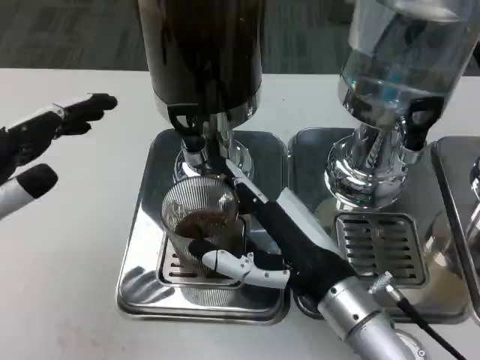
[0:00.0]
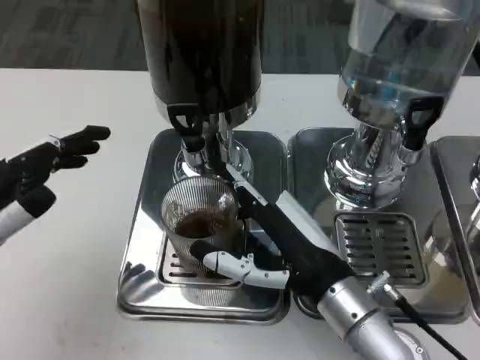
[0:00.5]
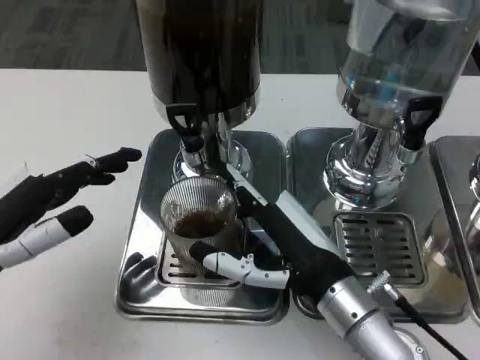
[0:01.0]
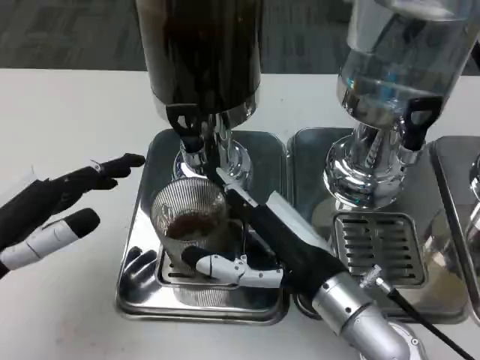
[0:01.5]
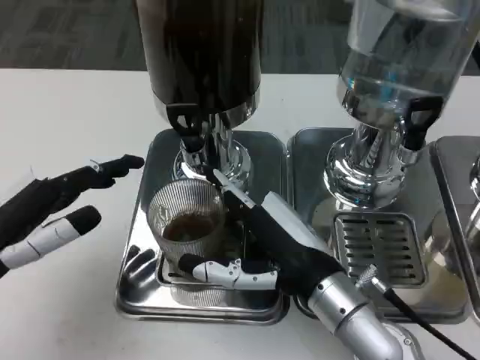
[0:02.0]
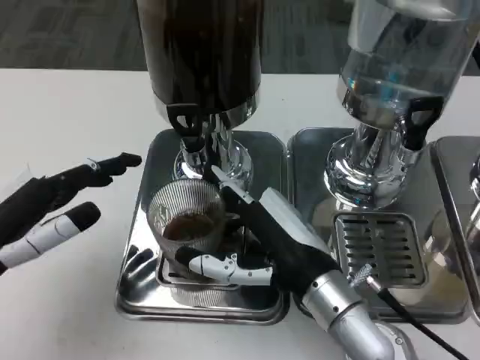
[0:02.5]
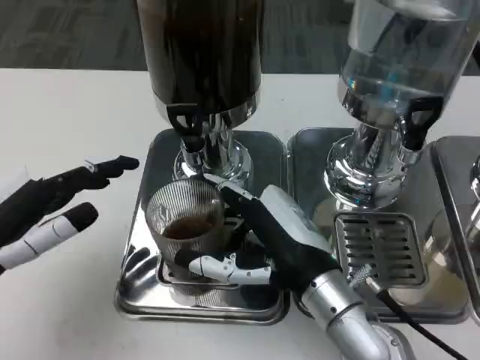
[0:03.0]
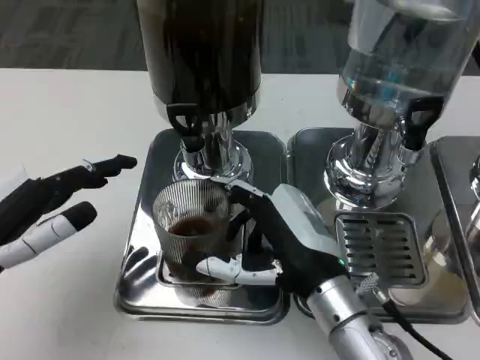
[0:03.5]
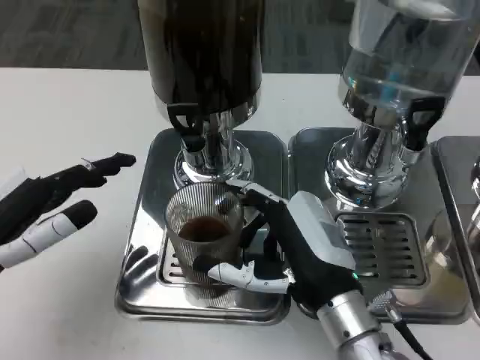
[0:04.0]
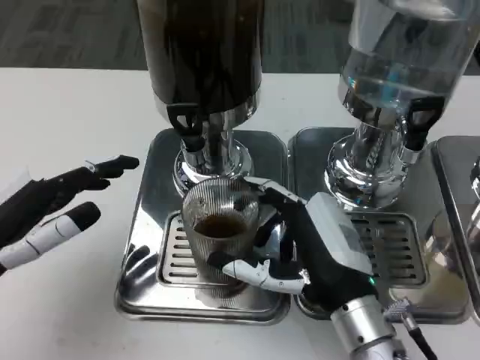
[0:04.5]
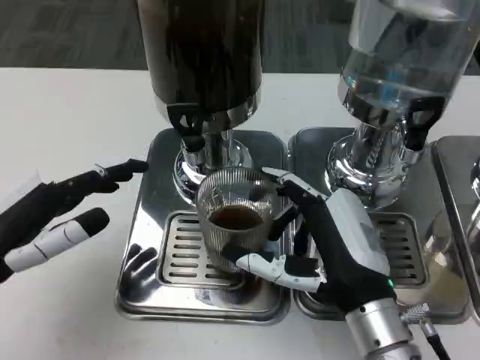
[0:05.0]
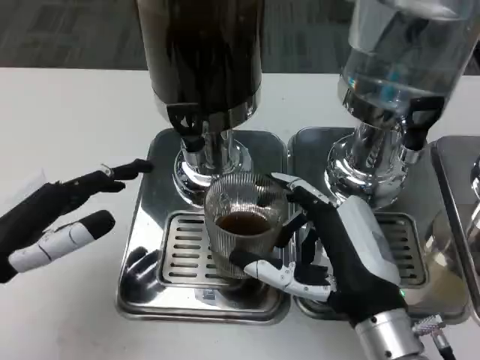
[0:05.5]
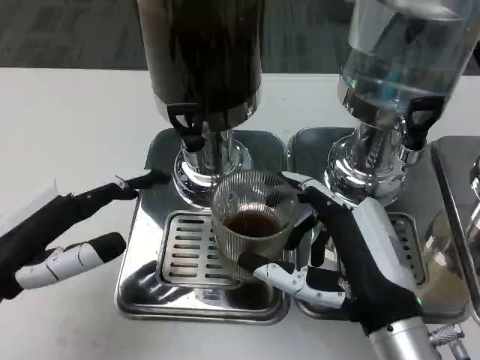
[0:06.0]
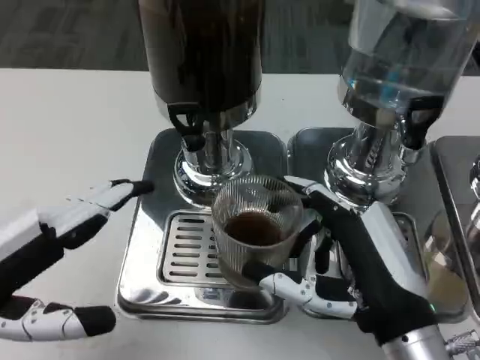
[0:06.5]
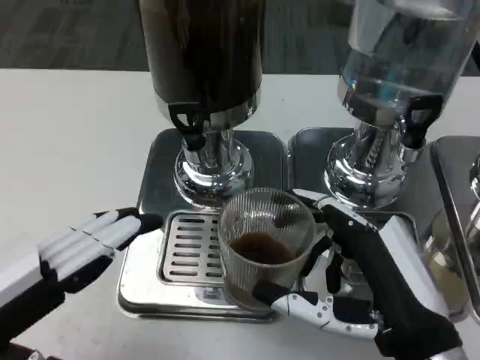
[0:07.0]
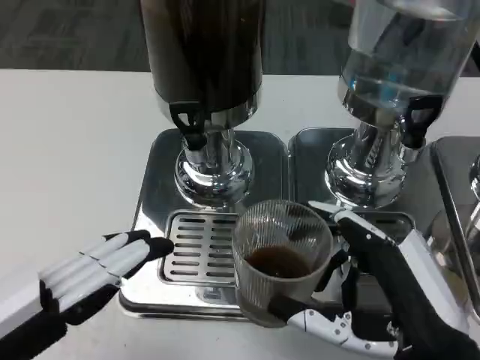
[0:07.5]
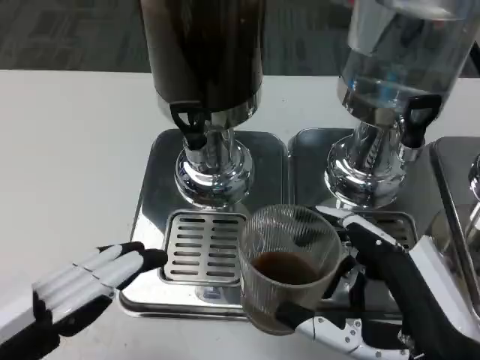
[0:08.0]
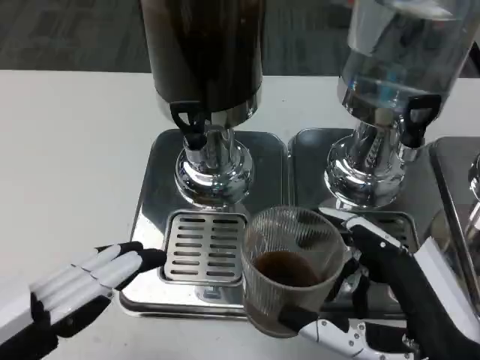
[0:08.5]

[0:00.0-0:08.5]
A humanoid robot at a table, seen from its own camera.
Task of the whole recording: Grasp the cup under the faucet to collect the drink, then remove the cup.
0:02.0 to 0:04.0: The hands make only small movements.
0:04.0 to 0:06.5: The right hand moves some 5 cm. The left hand ends up approximately 5 cm from where it was.
0:06.5 to 0:08.5: The hands both shift backward by about 5 cm.

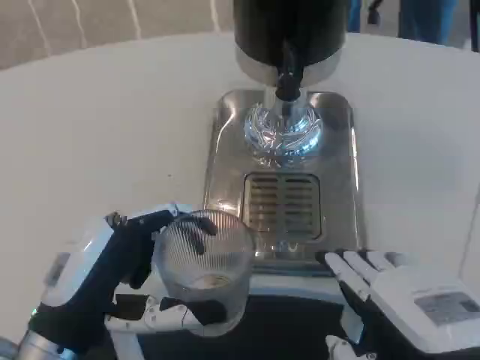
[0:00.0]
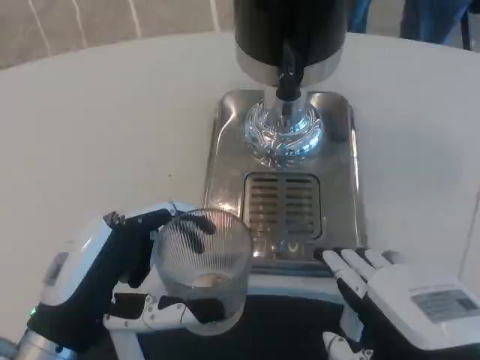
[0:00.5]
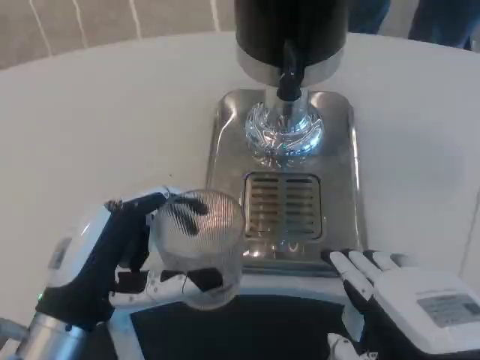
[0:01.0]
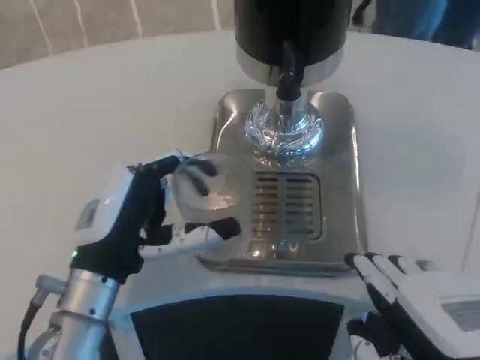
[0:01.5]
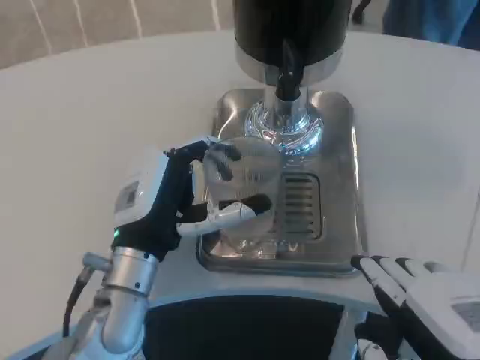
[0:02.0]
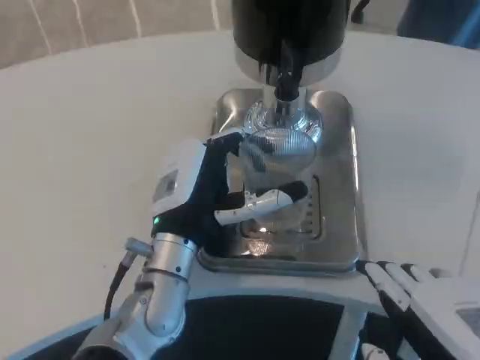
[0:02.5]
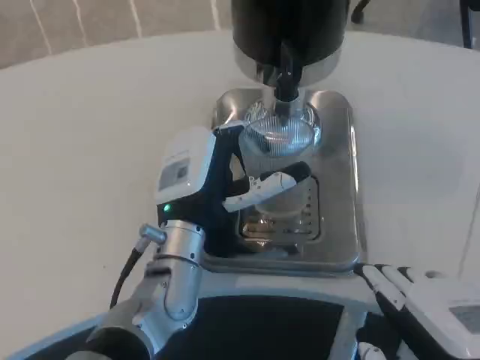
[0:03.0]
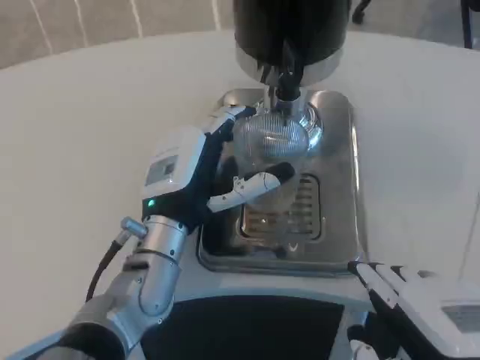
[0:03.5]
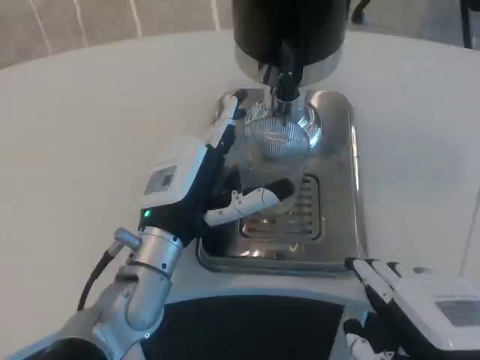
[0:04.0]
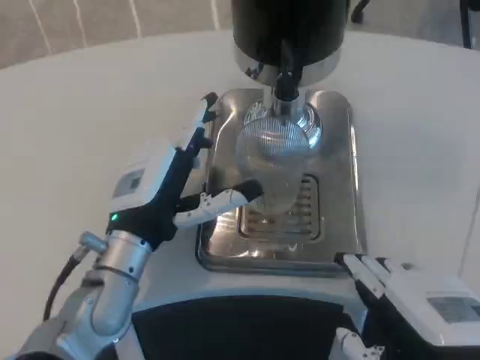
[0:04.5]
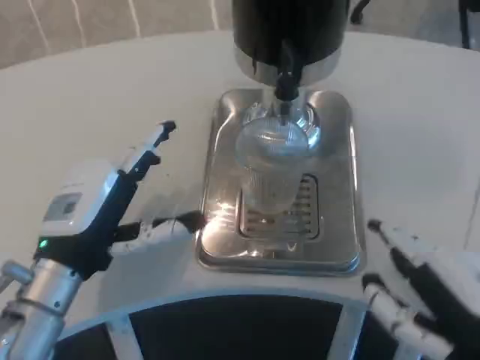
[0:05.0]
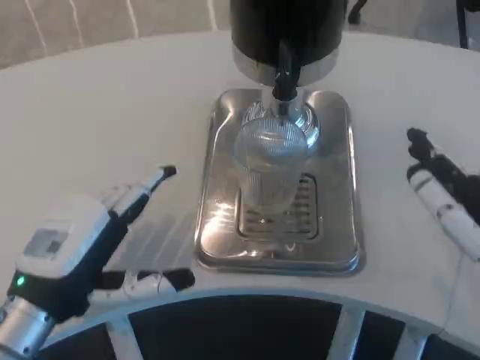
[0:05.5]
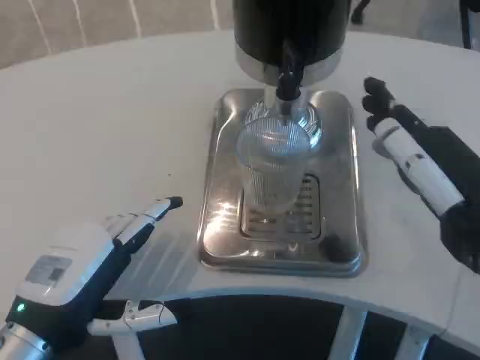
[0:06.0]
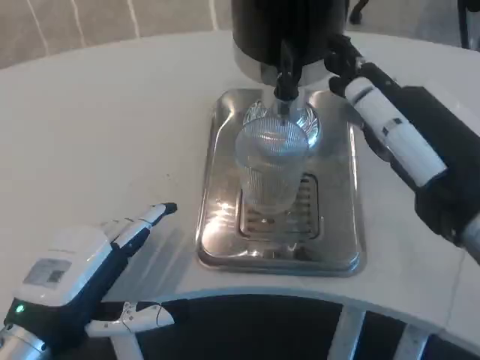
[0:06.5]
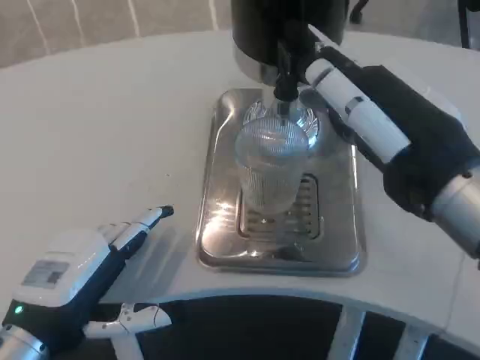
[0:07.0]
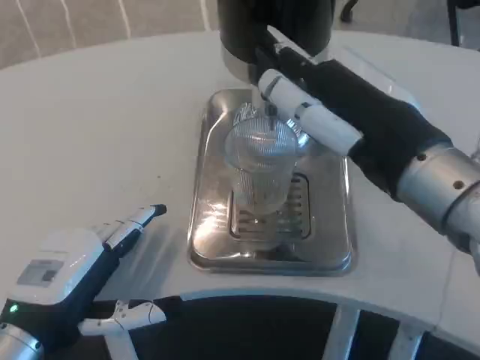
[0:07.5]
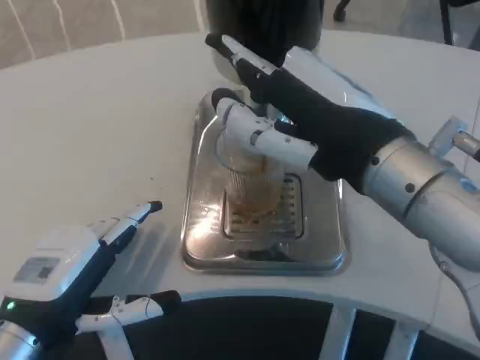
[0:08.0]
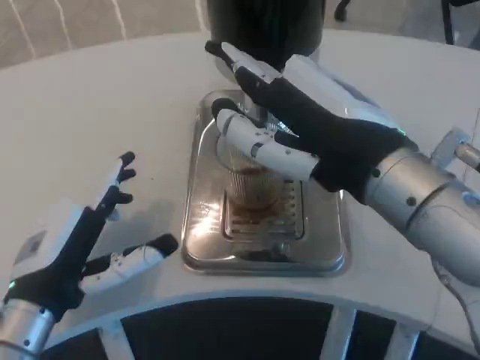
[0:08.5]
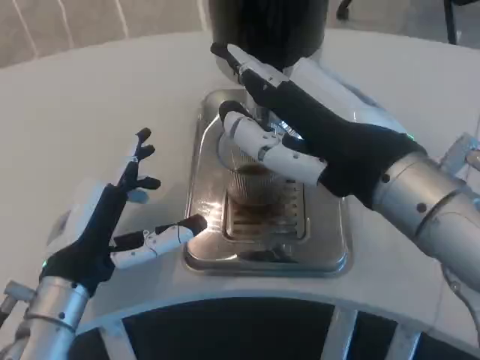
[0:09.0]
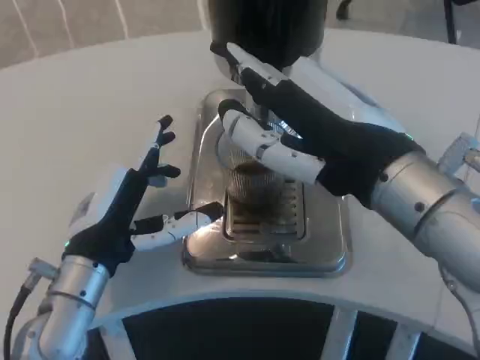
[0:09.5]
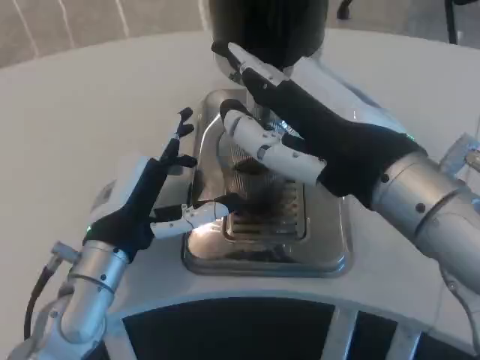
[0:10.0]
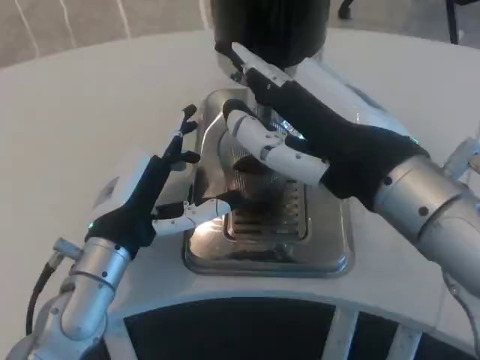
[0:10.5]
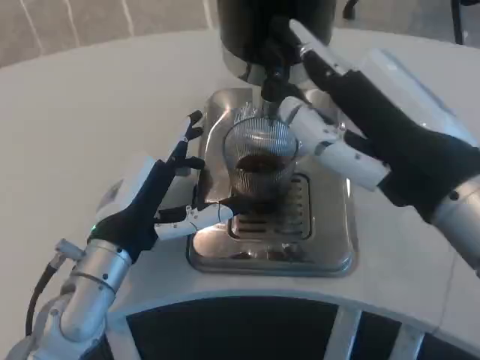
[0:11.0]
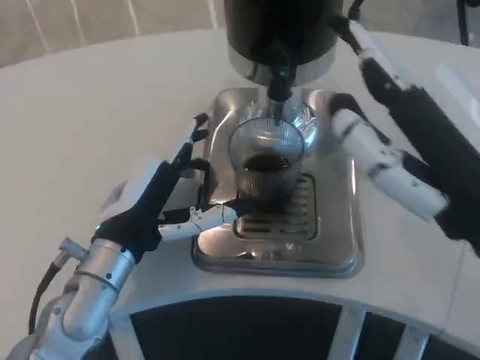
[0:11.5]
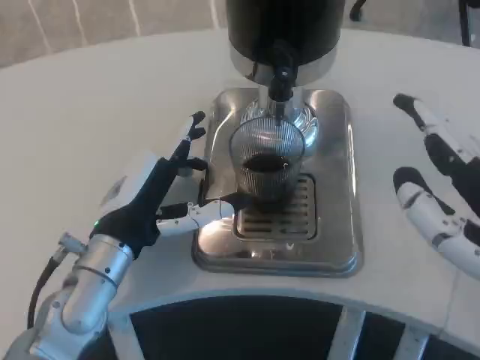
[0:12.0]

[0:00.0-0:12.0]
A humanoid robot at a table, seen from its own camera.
Task of the whole recording: Grasp the cup under the faucet to collect the drink, then remove the cup.
0:00.0 to 0:02.0: The left hand goes about 10 cm forward and to the right.
0:02.0 to 0:04.0: The hands make only small movements.
0:04.0 to 0:06.0: The right hand travels forward and upward by approximately 10 cm, while the left hand moves to the left and backward, about 15 cm.
0:06.0 to 0:08.0: The right hand is displaced to the left and upward by about 10 cm.
0:08.0 to 0:10.0: The left hand goes some 10 cm forward and to the right.
0:10.0 to 0:12.0: The right hand moves to the right and backward, about 10 cm.

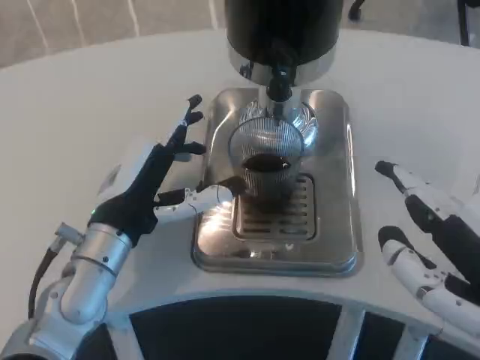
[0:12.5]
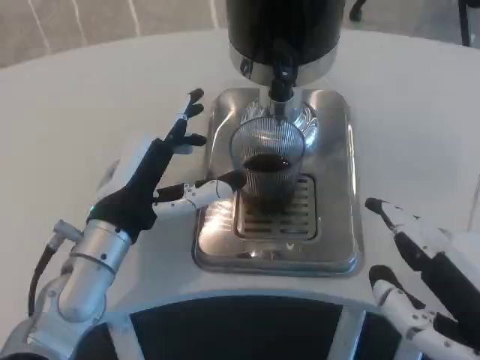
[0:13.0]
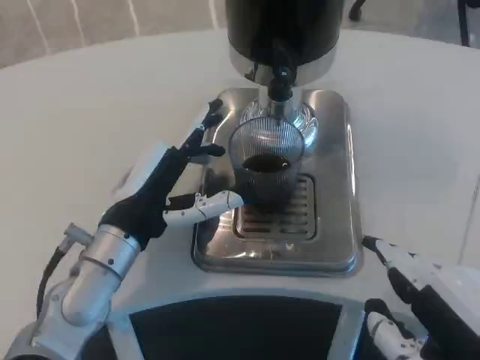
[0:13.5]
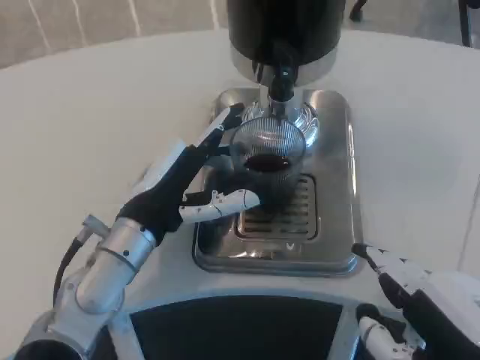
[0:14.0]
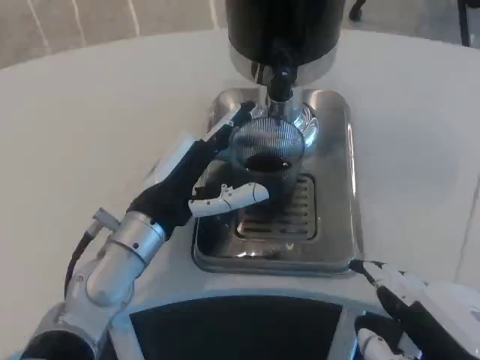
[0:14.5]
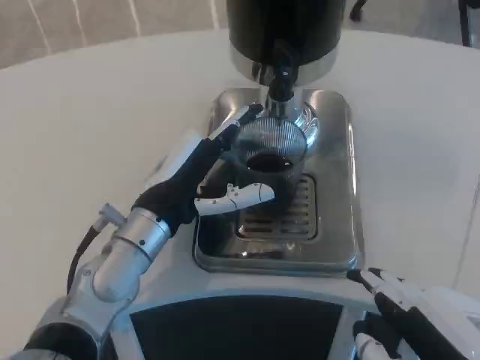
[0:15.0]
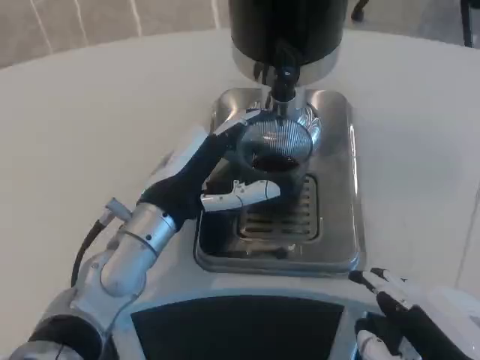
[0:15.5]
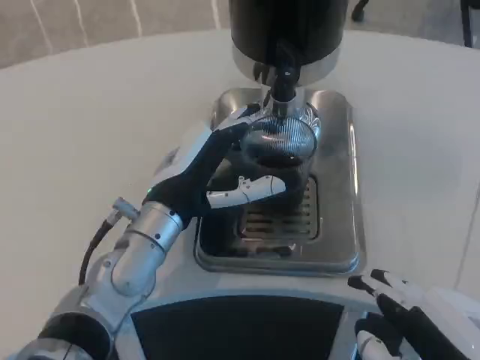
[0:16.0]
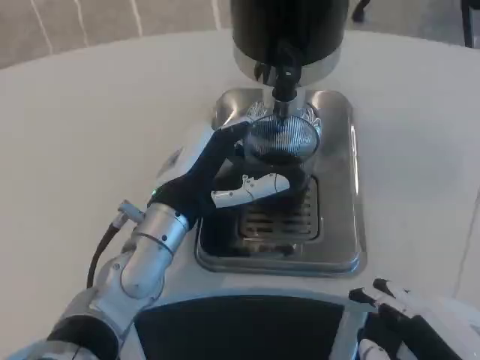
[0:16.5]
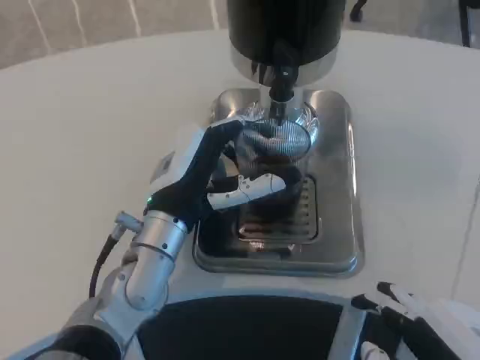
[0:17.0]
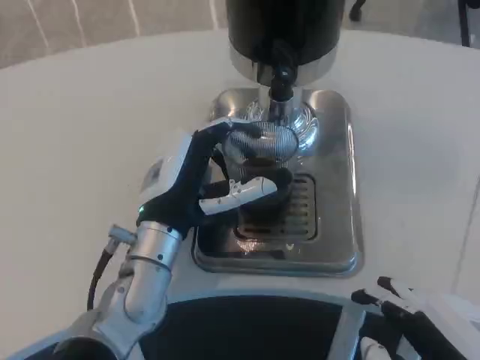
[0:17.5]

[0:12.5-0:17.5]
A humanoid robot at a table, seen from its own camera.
Task of the whole recording: Grasp the cup under the faucet to collect the drink, then remove the cup.
0:15.0 to 0:17.5: The hands stay close to where they were, moving slightly.
